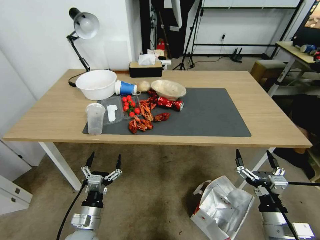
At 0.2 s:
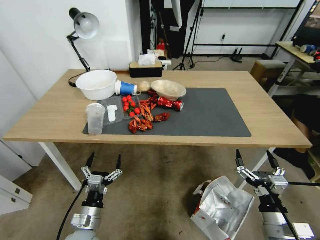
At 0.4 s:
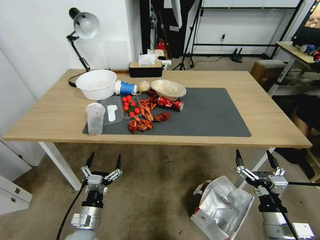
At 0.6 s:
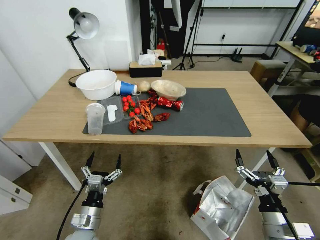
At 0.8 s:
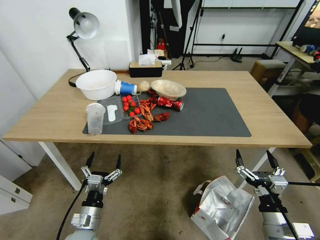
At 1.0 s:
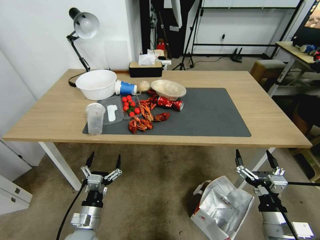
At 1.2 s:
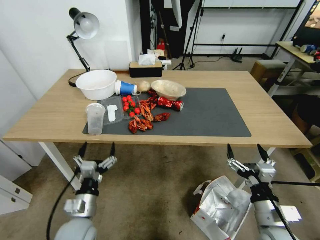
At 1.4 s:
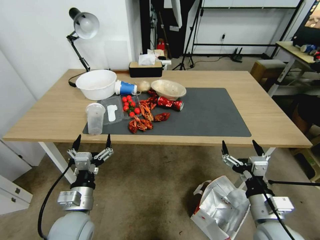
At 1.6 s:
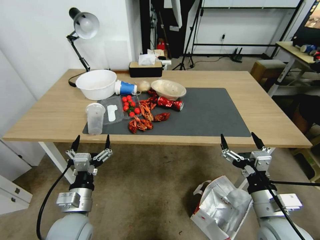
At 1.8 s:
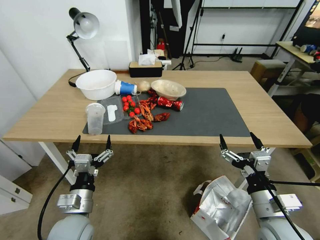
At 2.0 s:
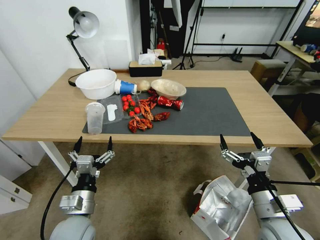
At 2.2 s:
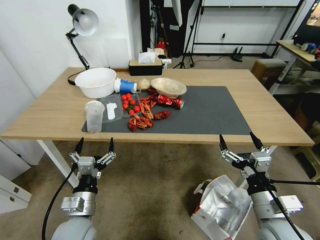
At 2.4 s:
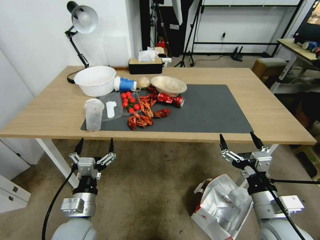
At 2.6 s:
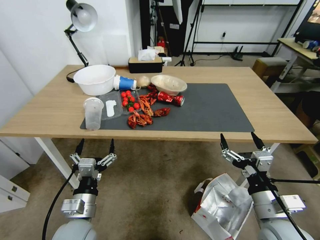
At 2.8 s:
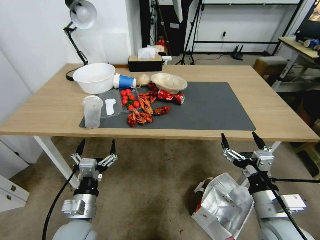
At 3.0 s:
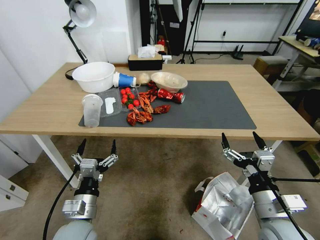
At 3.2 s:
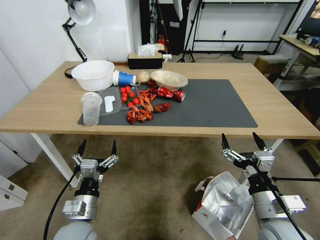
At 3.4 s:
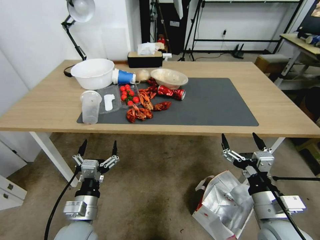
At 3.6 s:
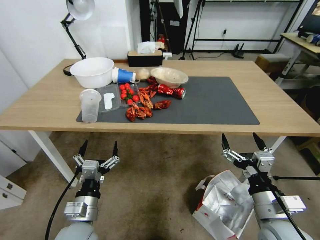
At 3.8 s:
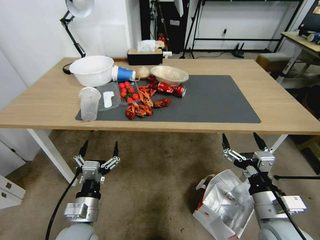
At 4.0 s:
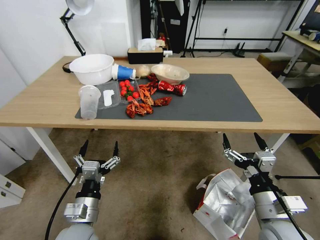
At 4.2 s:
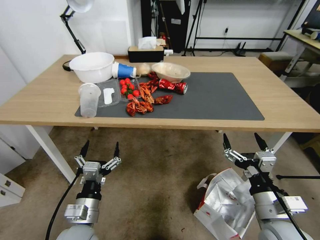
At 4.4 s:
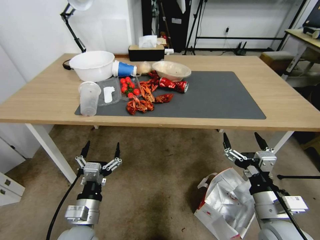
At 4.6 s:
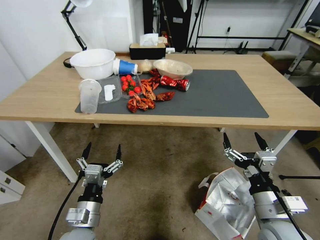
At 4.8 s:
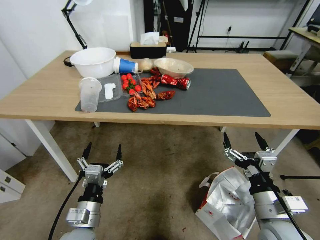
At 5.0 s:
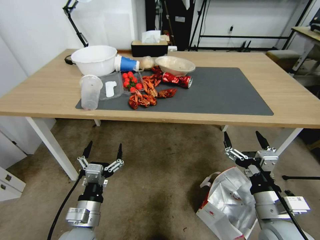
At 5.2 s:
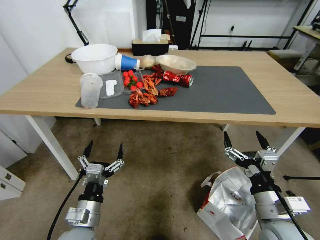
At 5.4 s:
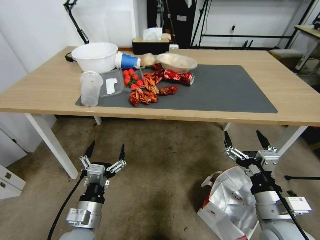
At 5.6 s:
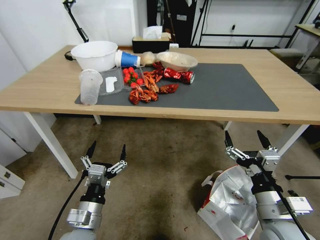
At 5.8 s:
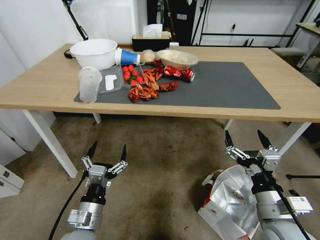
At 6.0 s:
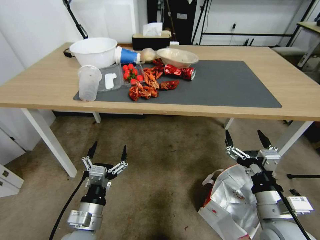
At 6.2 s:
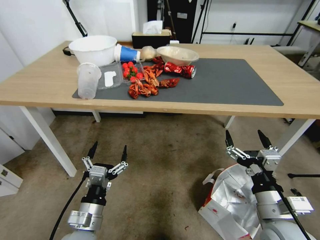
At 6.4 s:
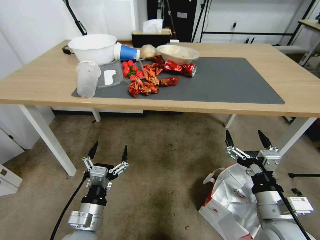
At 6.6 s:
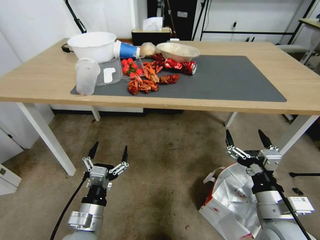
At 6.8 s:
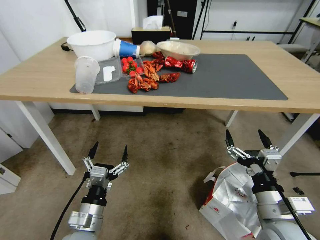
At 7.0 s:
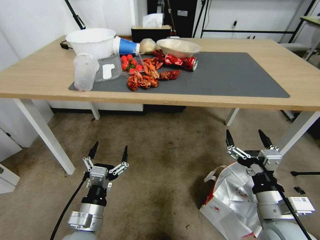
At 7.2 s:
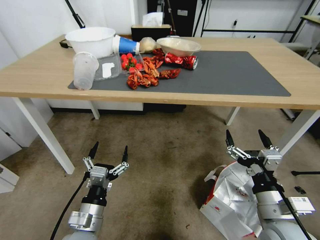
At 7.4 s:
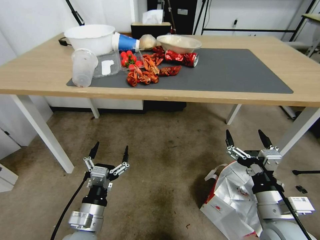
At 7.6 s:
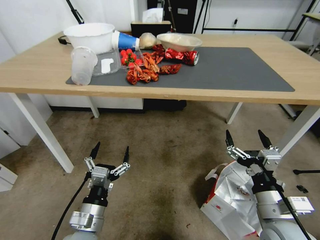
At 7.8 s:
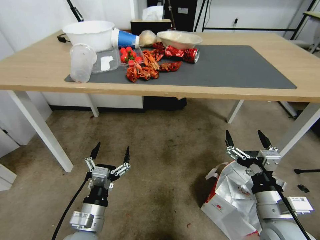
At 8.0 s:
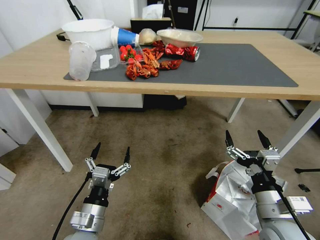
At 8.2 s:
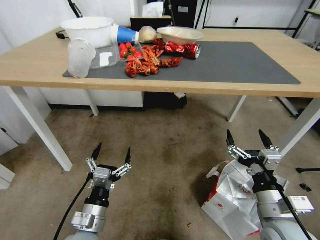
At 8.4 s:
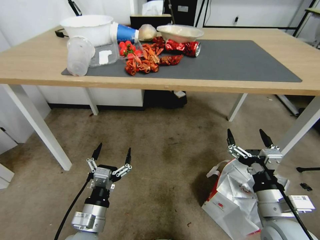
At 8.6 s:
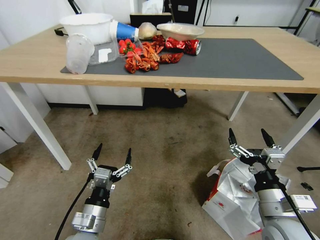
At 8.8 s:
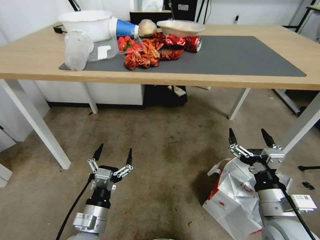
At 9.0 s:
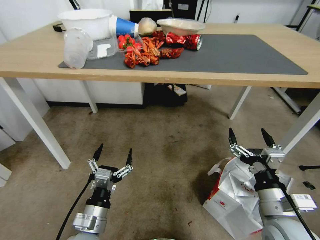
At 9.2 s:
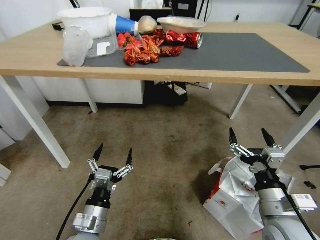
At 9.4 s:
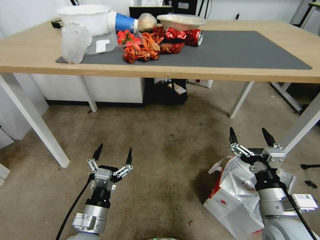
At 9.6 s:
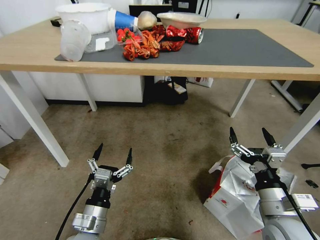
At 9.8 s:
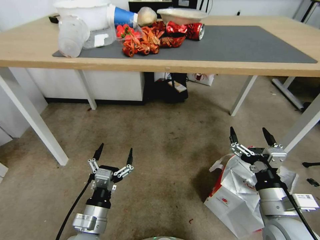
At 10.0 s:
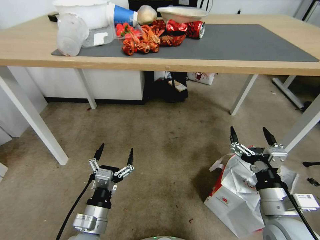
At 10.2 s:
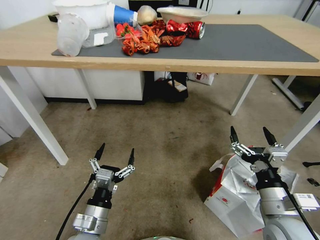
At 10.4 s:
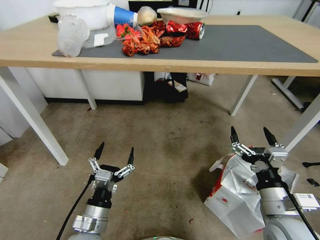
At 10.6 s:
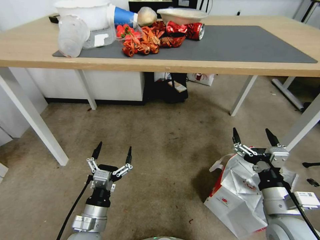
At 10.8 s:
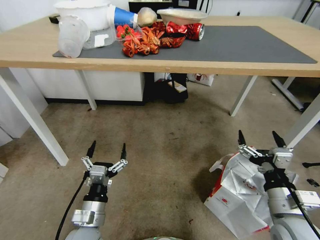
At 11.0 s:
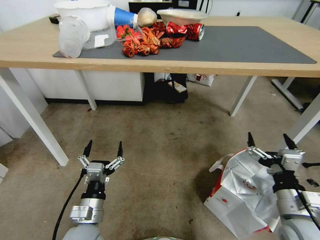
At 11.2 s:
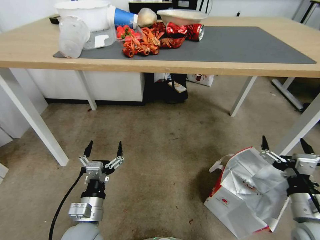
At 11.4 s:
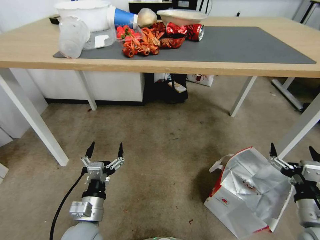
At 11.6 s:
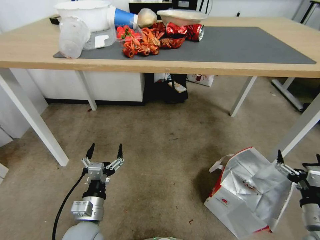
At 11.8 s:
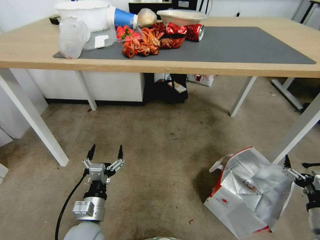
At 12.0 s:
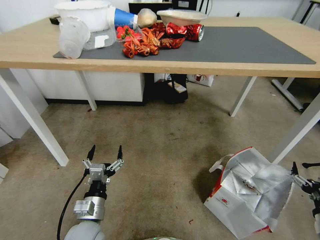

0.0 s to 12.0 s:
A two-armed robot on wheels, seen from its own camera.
Task of the whole recording: Pick up the food delivery bag from the floor and place it on the table.
10.4 to 12.0 s: The right gripper heads to the right and downward, covering roughly 20 cm.

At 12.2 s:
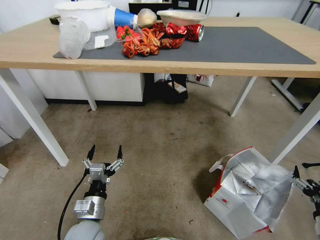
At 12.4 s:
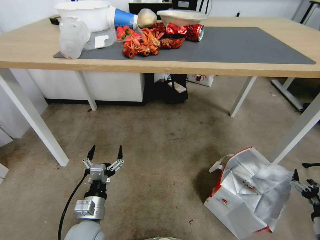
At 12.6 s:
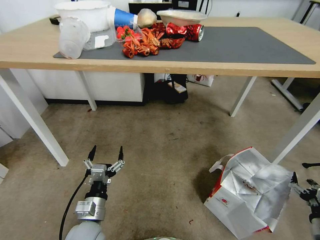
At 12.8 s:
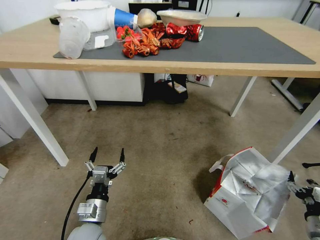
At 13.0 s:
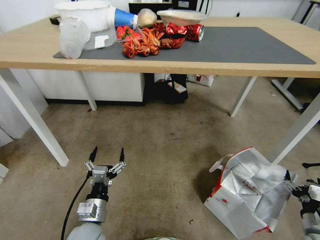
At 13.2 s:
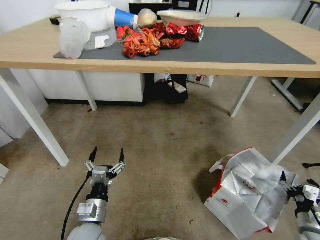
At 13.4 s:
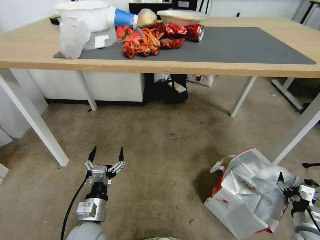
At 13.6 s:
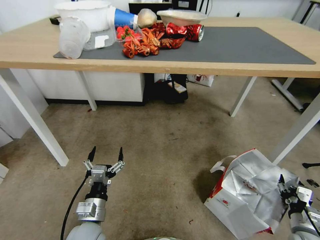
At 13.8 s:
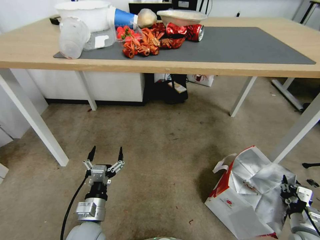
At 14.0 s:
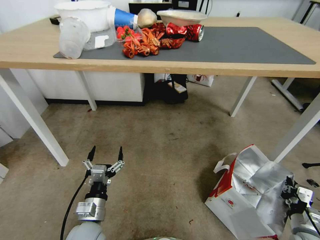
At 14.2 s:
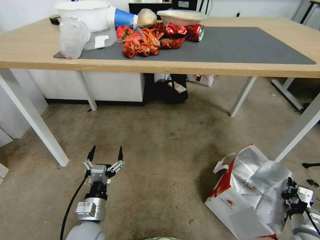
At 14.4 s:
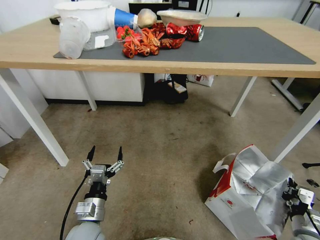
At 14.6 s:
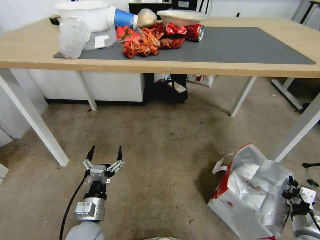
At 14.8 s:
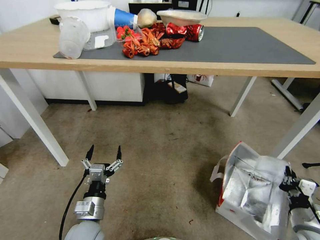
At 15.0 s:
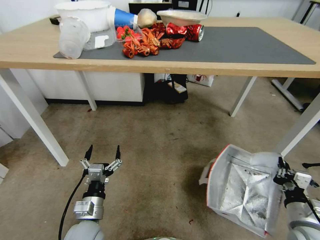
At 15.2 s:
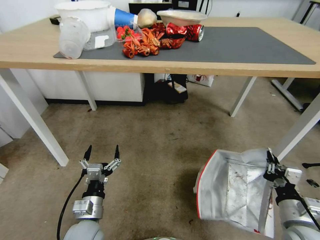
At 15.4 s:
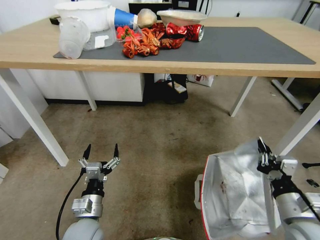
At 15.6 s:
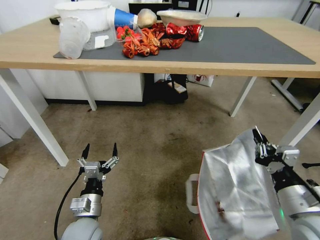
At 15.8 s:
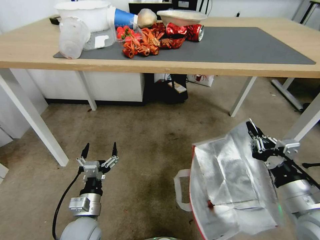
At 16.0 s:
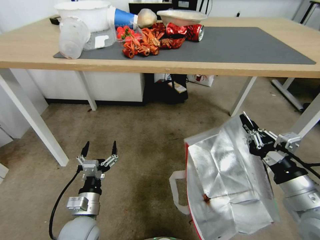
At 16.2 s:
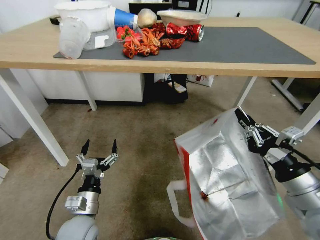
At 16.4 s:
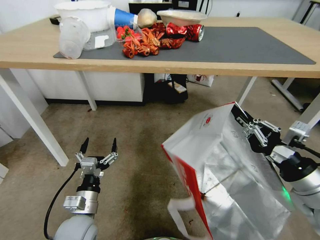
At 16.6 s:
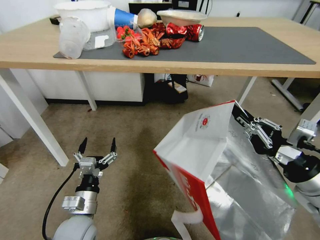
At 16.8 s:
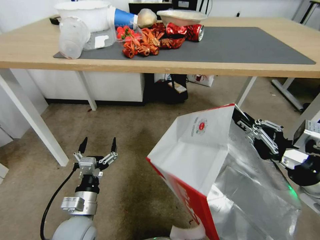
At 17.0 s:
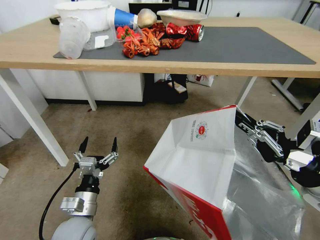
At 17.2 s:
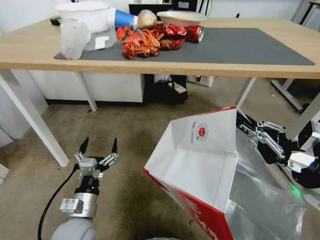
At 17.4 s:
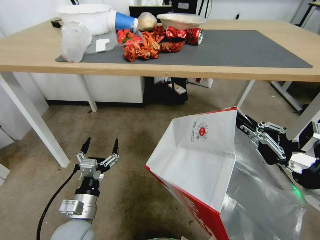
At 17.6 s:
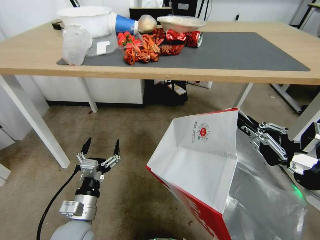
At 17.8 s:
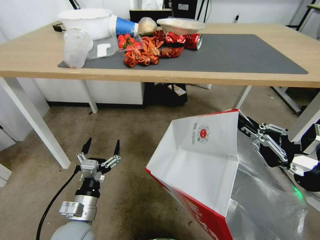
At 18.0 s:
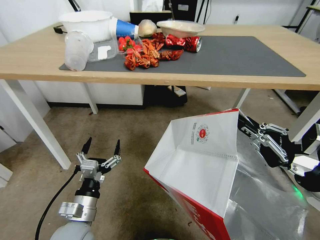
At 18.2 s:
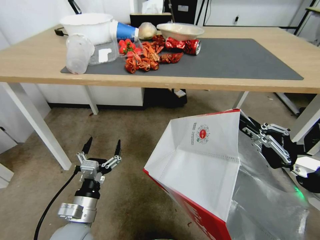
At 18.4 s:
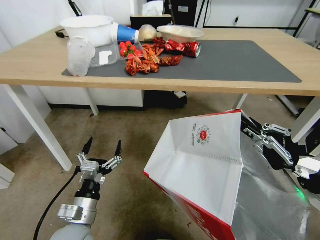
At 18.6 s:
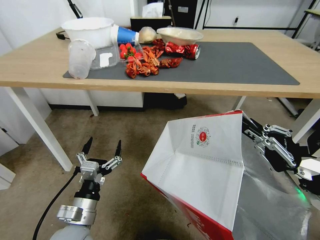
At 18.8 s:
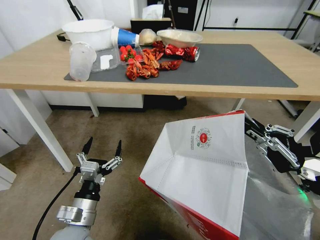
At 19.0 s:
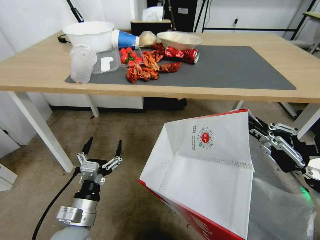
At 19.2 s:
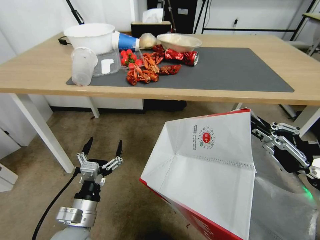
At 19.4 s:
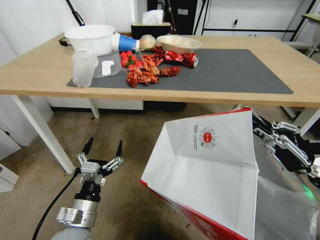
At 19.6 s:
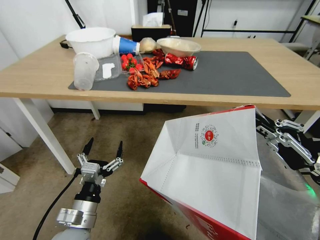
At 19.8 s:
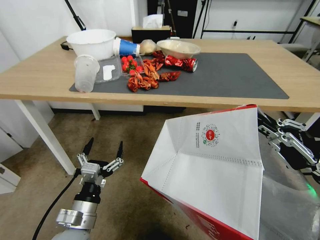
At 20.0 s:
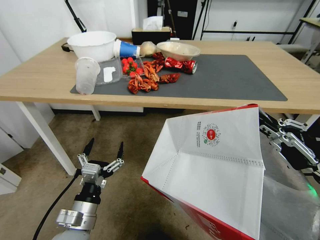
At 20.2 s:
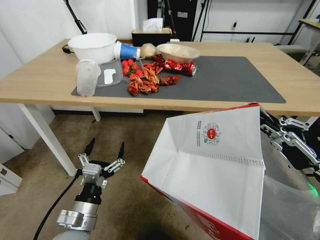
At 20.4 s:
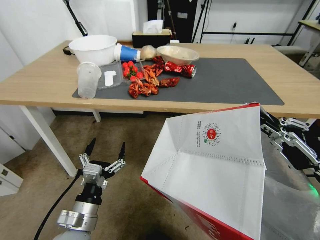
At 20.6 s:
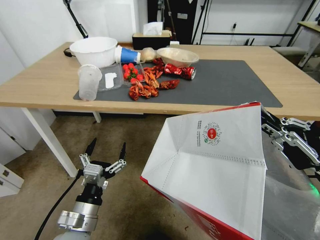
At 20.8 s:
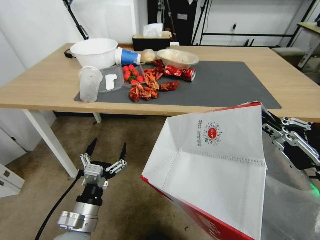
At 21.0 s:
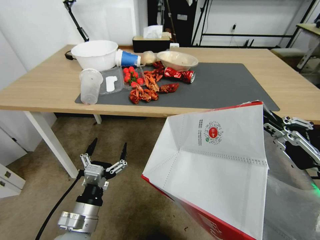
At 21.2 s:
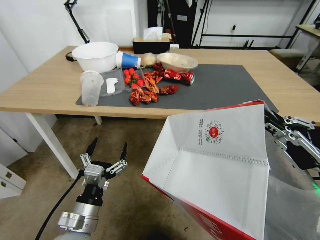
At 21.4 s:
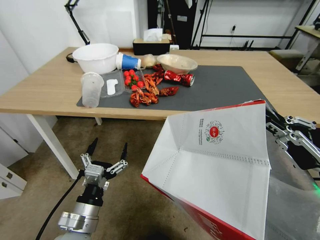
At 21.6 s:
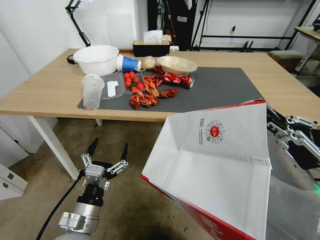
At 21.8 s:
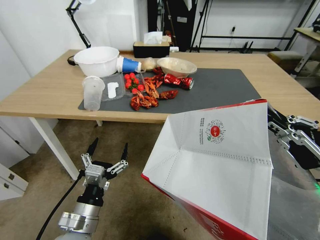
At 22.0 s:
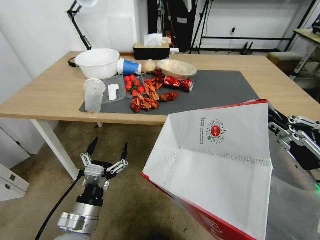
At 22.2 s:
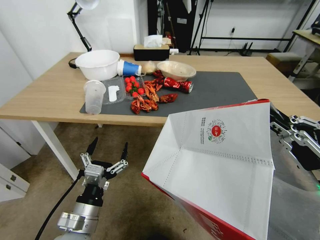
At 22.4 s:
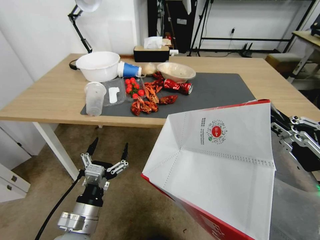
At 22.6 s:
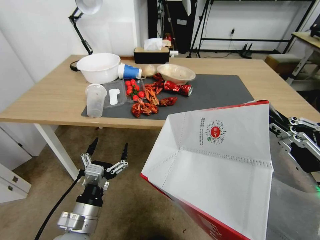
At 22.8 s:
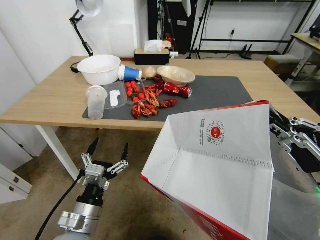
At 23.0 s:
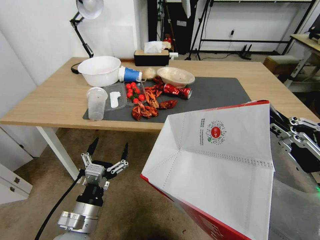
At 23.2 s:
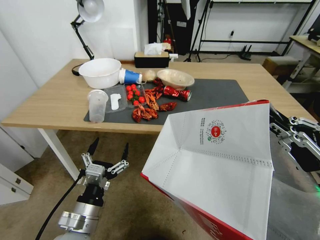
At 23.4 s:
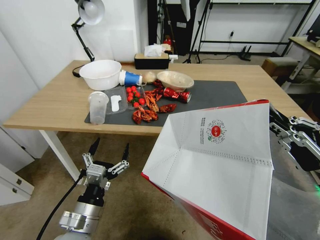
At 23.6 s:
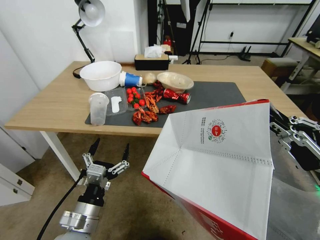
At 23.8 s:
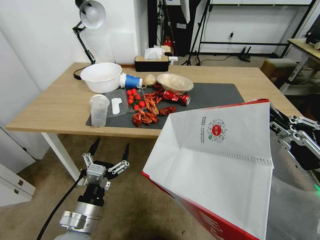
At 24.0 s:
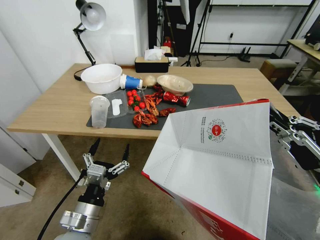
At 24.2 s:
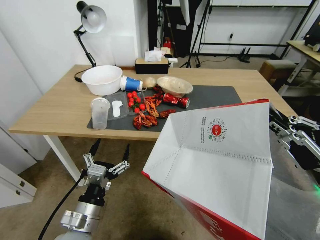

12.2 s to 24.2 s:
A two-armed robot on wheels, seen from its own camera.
Task of the whole recording: Pick up the food delivery bag from the floor and place it on the table.
12.2 to 13.8 s: The right gripper is displaced downward by about 5 cm, and closes up.
13.8 to 15.2 s: The right gripper shifts some 15 cm upward and to the left.
15.2 to 16.6 s: The right gripper goes some 15 cm upward.
